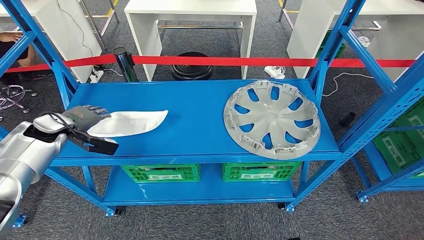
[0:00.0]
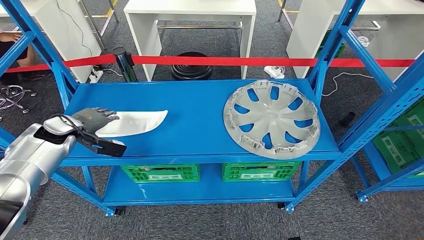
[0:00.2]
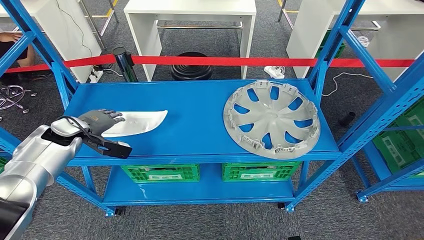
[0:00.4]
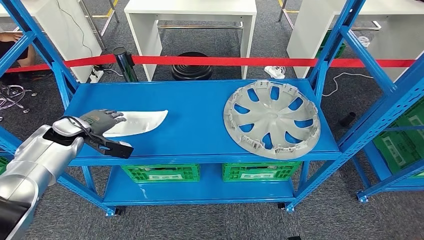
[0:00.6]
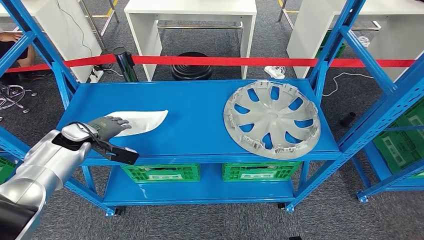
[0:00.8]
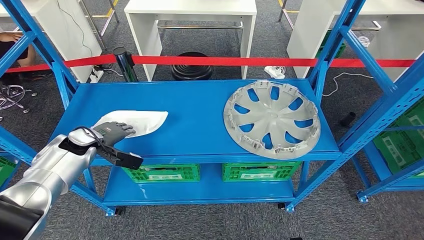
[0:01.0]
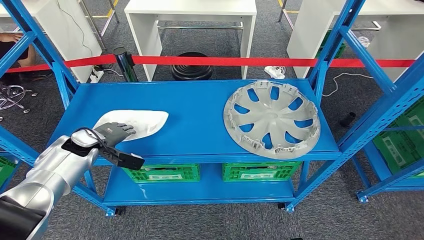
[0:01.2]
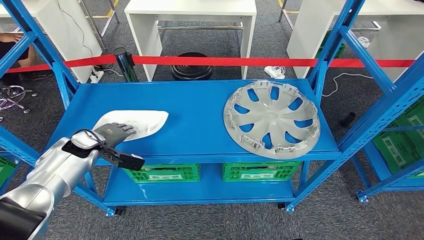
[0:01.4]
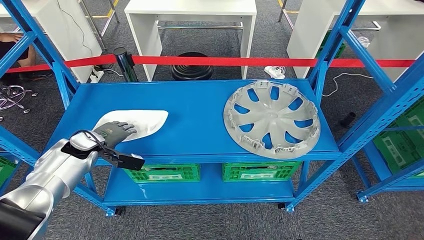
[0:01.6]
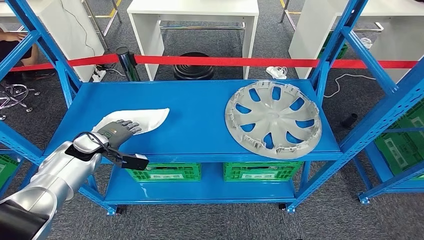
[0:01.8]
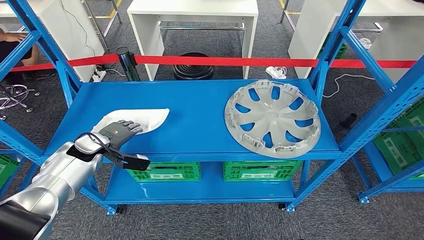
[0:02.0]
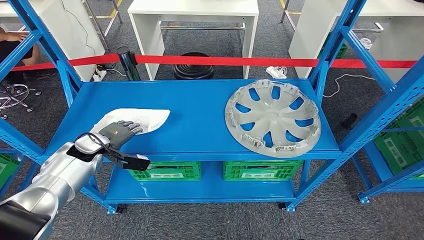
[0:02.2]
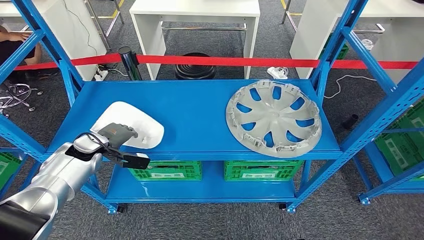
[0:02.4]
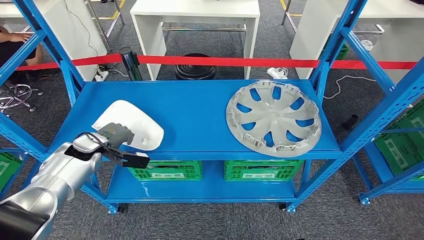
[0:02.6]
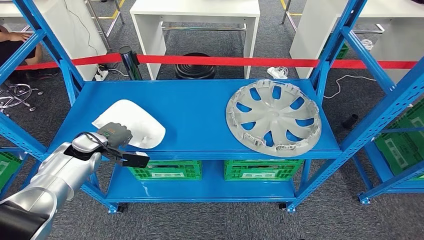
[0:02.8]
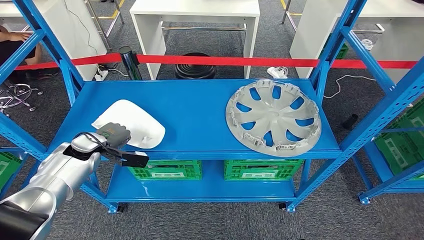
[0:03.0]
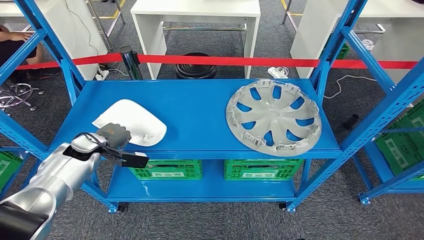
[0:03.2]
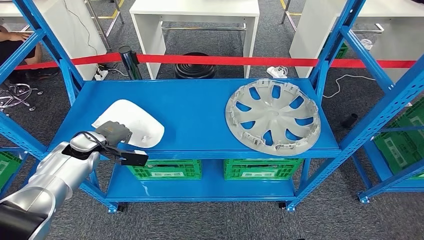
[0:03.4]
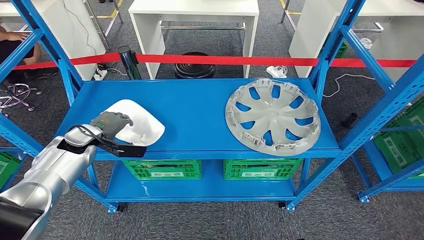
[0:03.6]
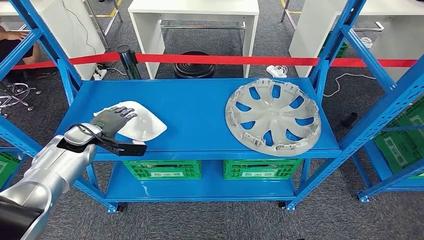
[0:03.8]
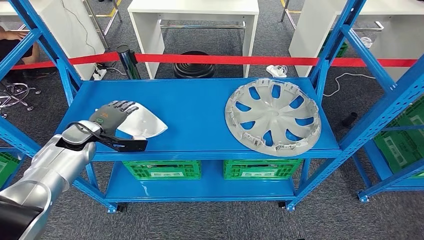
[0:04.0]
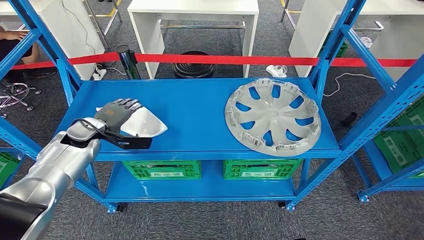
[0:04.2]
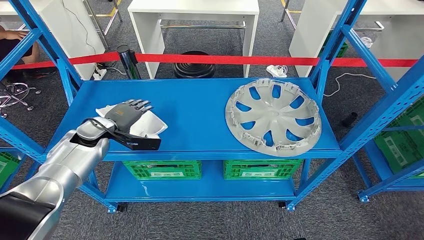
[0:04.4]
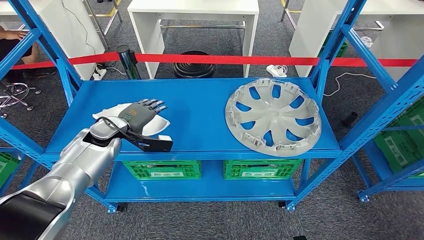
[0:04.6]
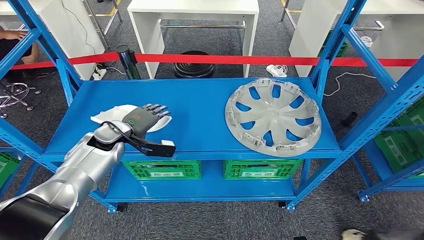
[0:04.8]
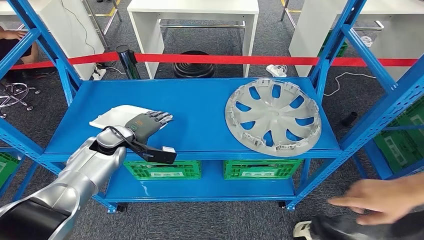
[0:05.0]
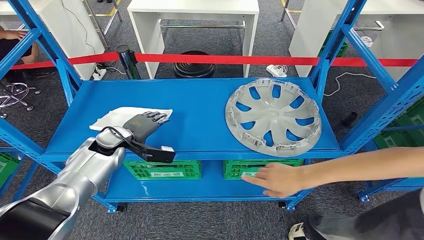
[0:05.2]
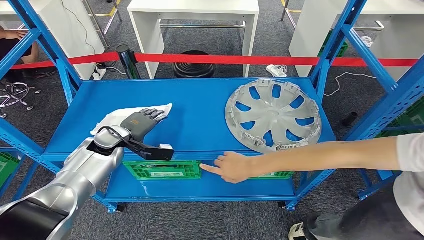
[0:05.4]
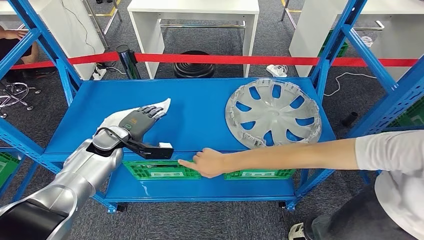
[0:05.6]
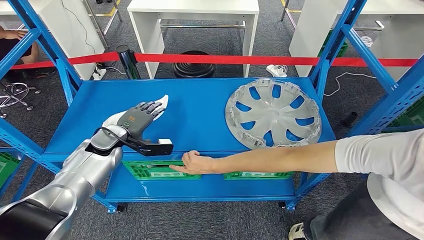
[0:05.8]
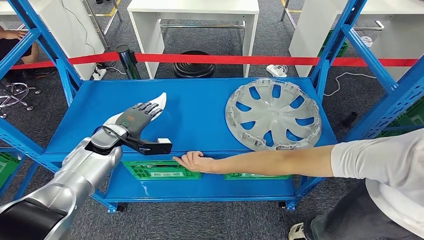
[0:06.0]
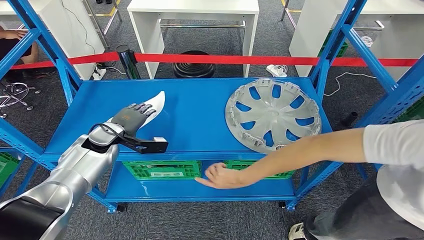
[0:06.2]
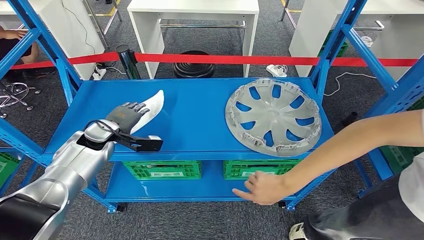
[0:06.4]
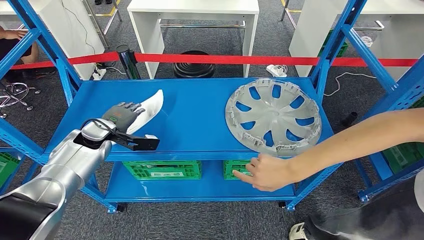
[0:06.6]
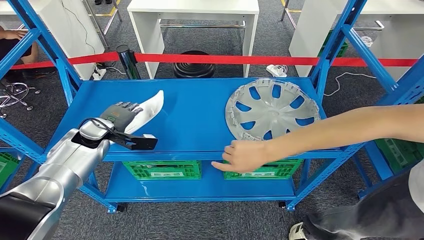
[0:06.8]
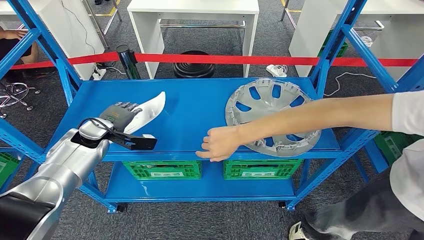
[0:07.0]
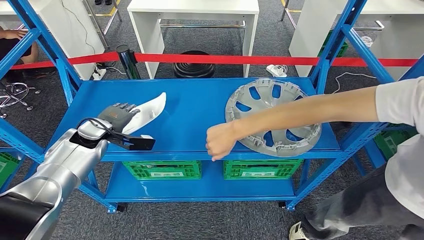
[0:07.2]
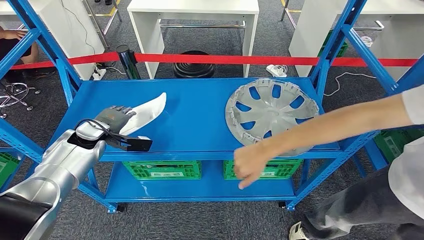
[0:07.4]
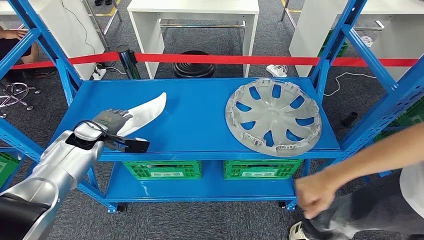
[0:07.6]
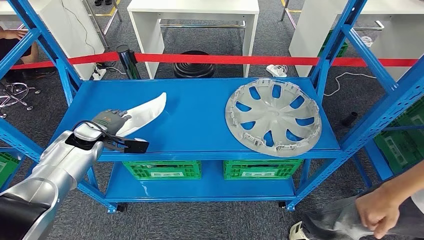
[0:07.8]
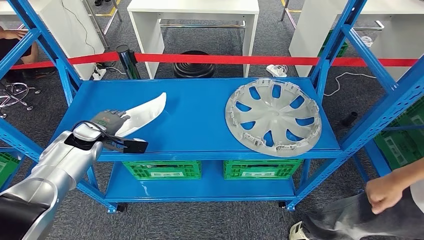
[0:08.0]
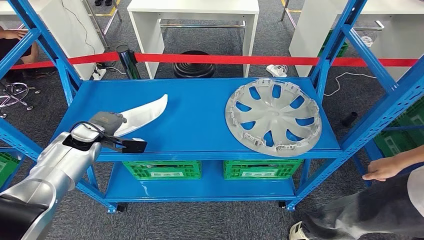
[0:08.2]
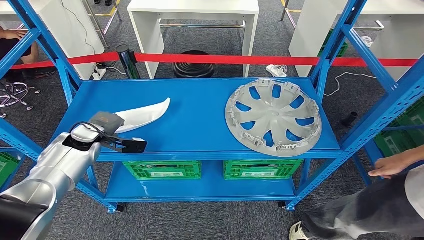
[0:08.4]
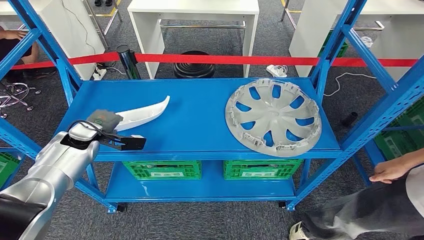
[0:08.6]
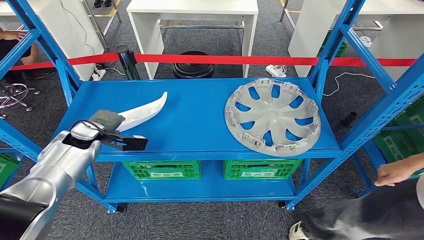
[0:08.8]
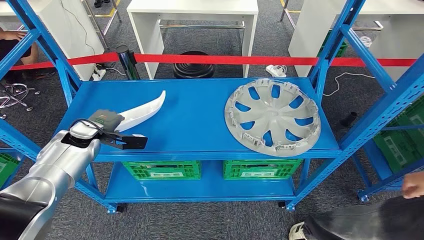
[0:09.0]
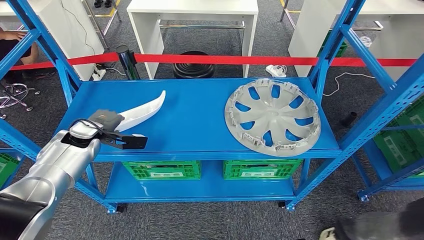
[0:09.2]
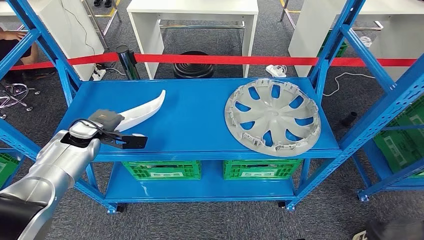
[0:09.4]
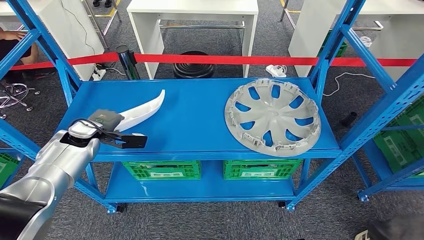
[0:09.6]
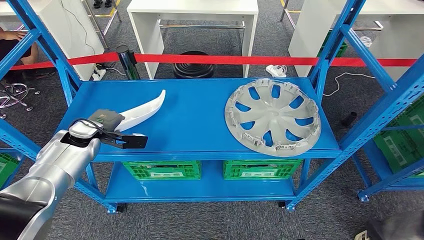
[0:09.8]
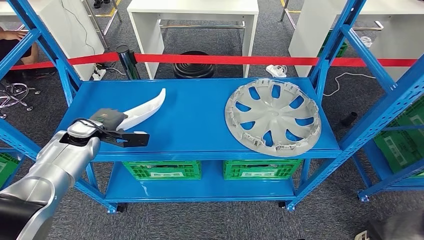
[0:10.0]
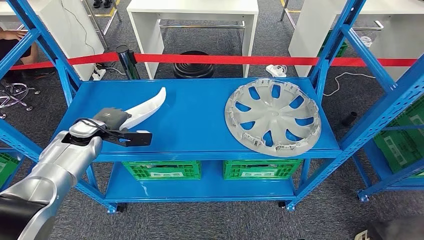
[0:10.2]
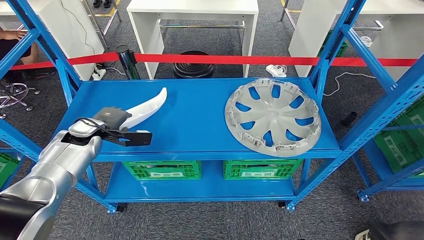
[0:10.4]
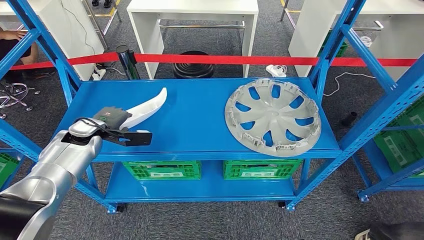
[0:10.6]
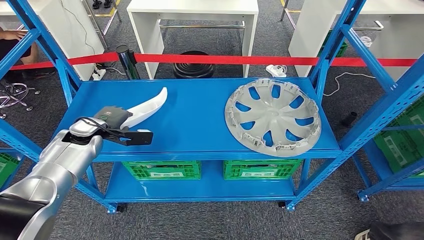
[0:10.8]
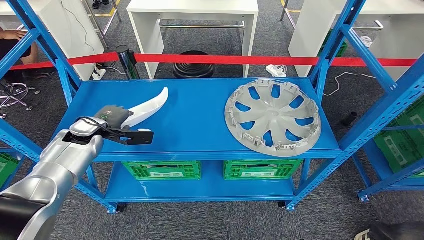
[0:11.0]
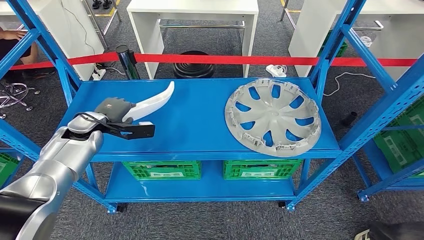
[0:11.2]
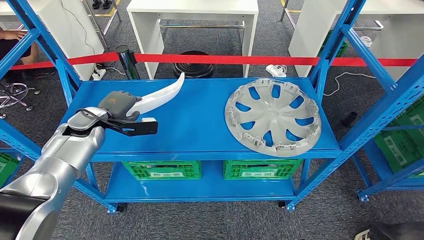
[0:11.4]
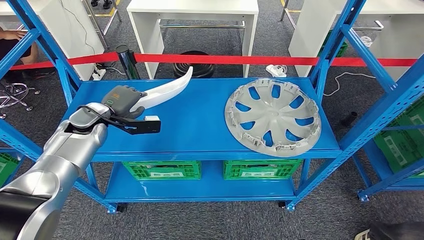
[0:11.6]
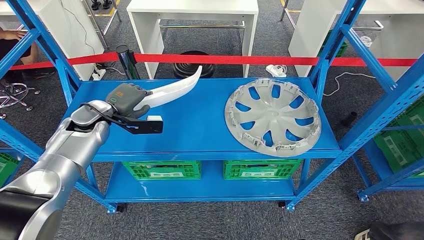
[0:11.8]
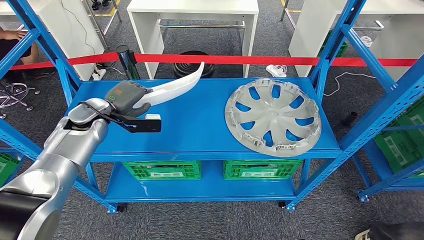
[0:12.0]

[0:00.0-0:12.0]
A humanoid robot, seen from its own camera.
Step, 0:00.0 to 0:11.4: Take small components from the rack.
0:00.0 to 0:01.6: The left hand heads to the right and downward, covering roughly 10 cm.
0:03.0 to 0:04.4: The left hand shifts by approximately 5 cm.
0:07.6 to 0:09.0: Neither hand changes place.
0:09.0 to 0:10.4: The hands stay close to where they were, moving slightly.
0:10.4 to 0:12.0: The left hand moves upward, about 5 cm.

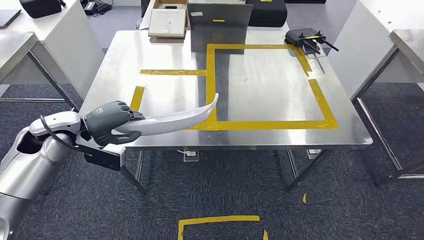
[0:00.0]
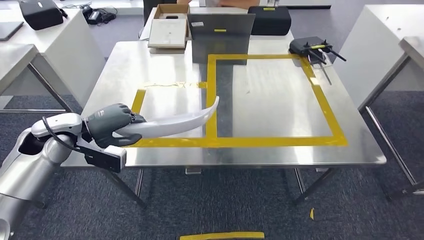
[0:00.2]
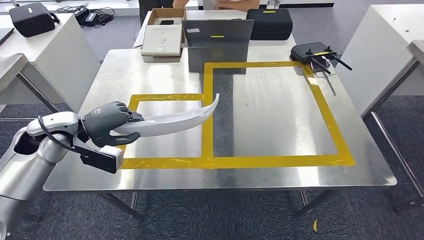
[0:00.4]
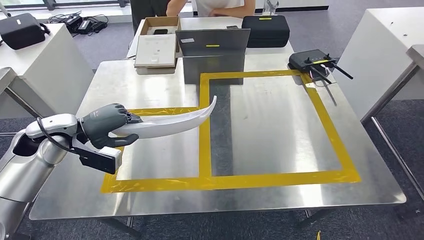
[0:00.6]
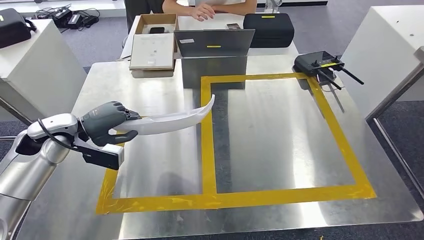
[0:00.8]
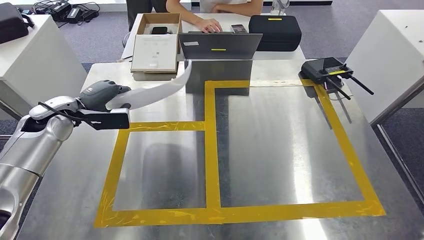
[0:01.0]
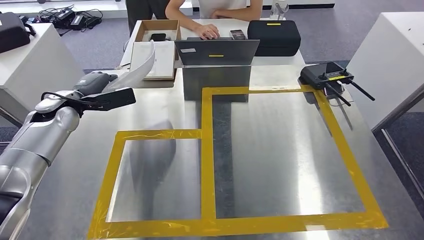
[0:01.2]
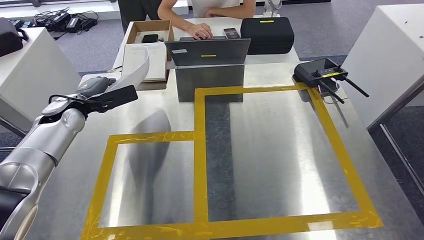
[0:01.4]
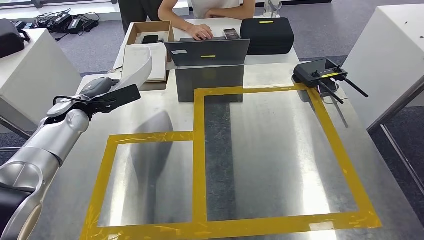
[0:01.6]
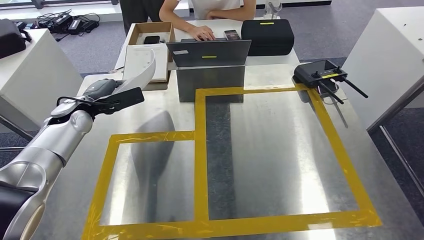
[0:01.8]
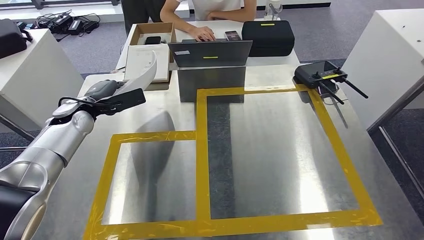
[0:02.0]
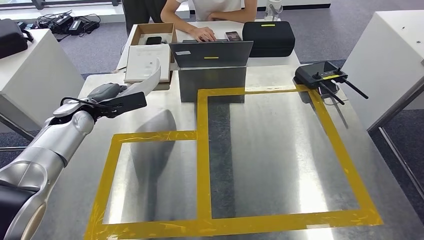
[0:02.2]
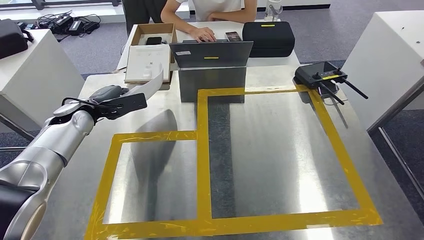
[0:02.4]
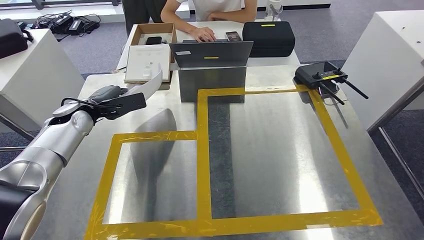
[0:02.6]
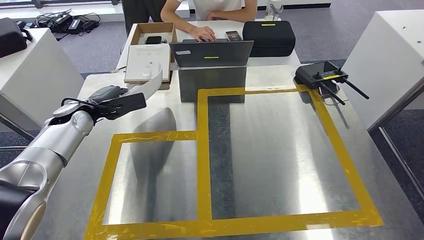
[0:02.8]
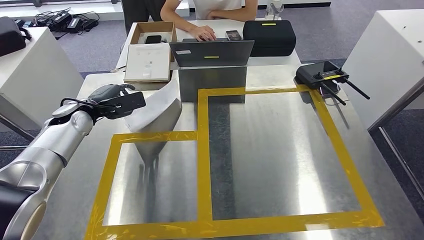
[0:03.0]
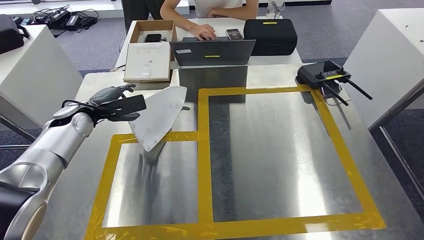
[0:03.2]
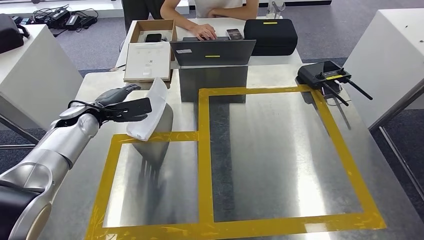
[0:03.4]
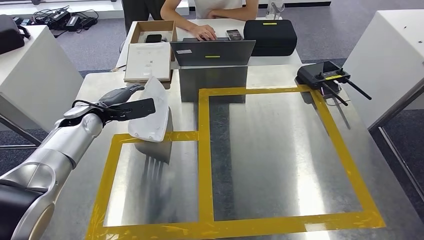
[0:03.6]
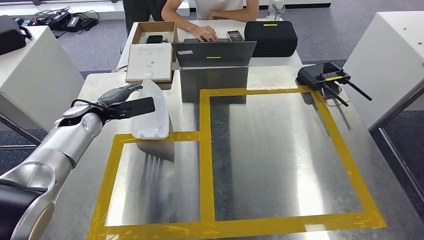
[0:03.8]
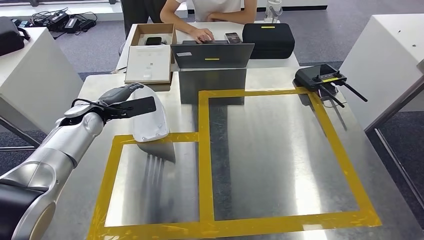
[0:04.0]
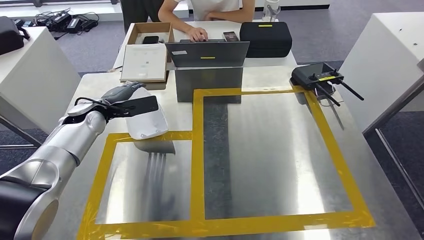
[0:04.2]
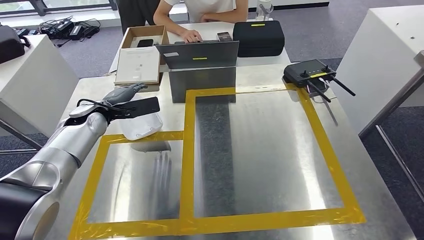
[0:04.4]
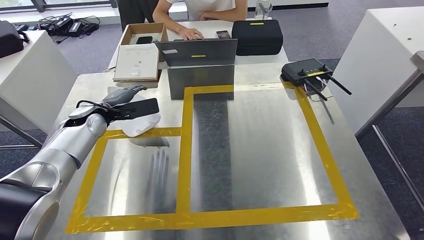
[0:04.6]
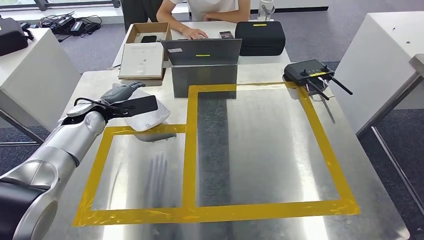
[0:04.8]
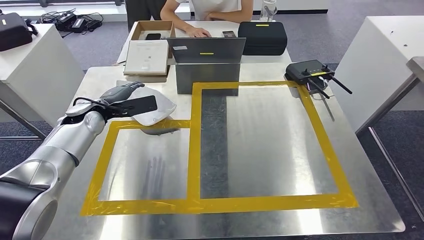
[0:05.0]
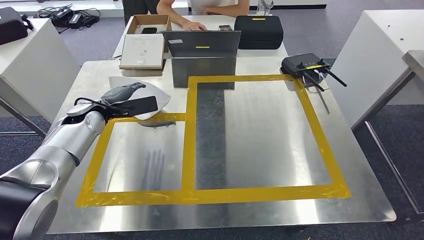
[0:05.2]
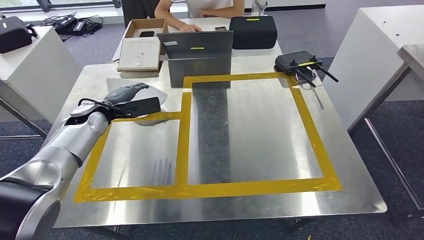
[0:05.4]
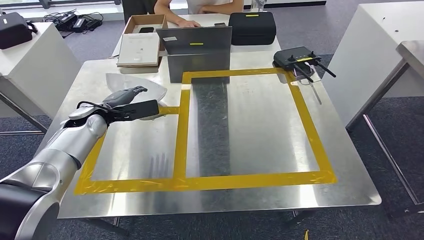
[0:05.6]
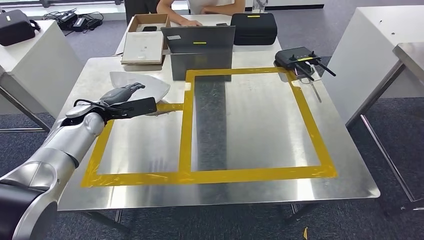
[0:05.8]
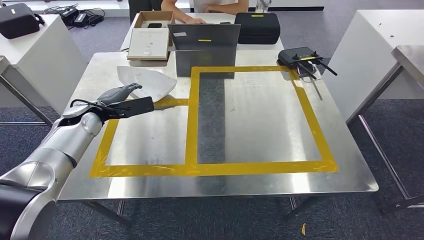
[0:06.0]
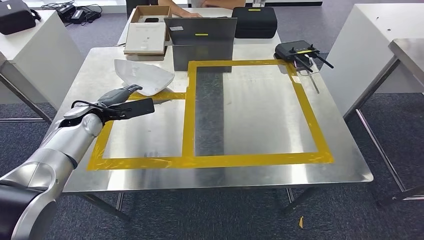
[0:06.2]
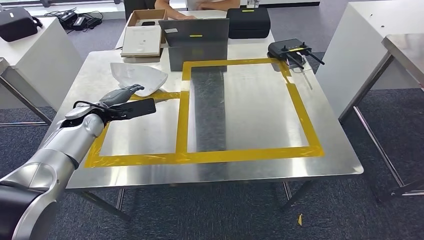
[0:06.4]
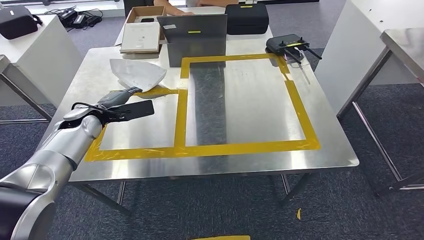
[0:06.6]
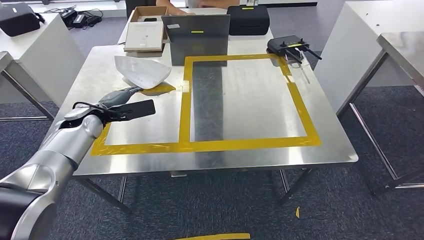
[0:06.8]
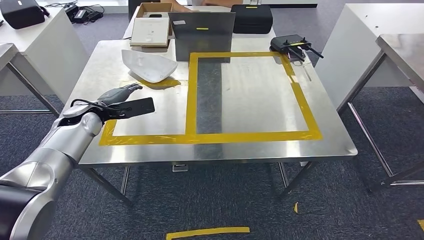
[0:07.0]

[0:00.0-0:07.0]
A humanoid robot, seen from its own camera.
Step, 0:00.2 to 0:05.2: Insert the small parts into the corresponding holes on the workbench.
